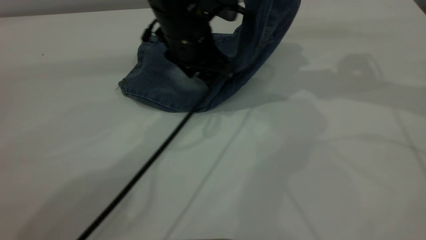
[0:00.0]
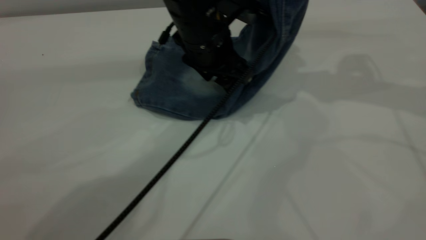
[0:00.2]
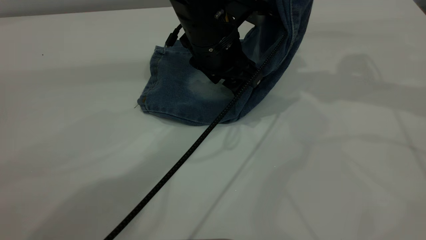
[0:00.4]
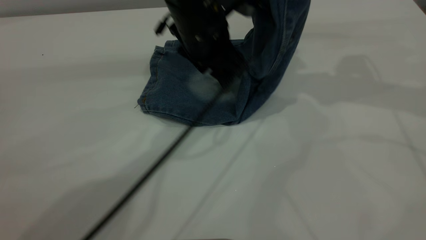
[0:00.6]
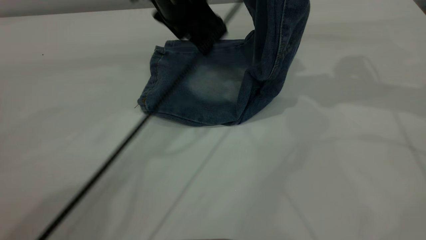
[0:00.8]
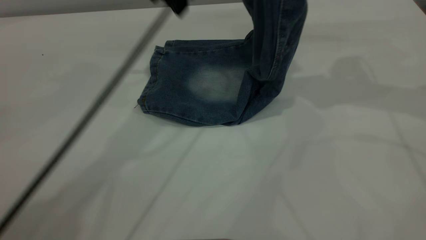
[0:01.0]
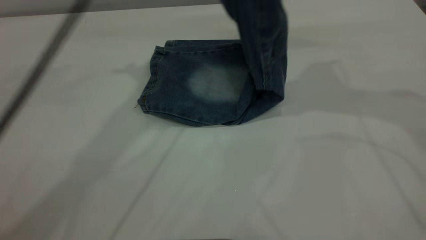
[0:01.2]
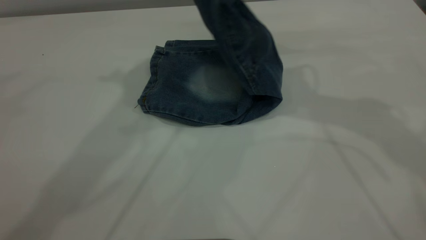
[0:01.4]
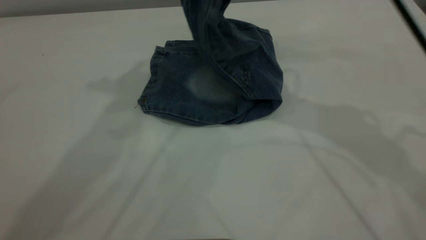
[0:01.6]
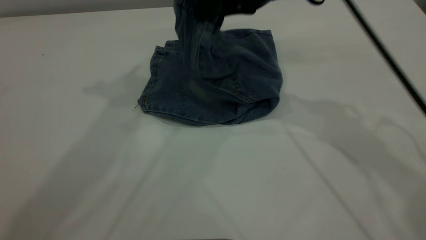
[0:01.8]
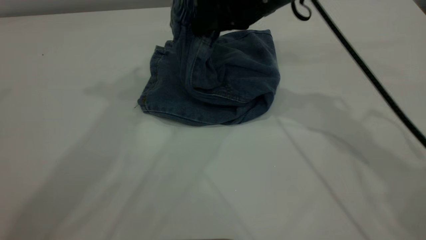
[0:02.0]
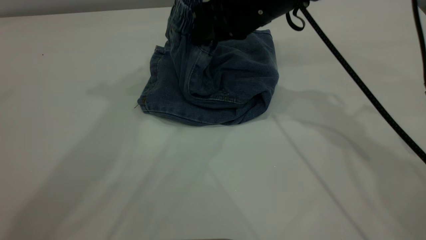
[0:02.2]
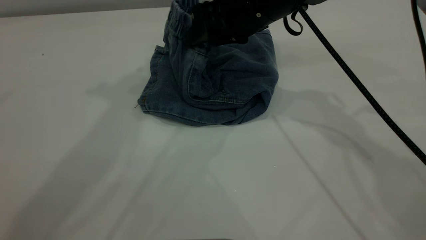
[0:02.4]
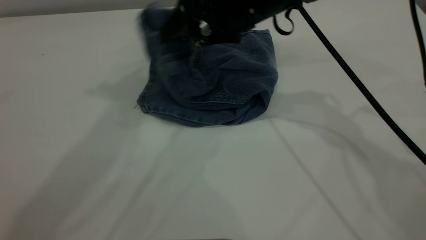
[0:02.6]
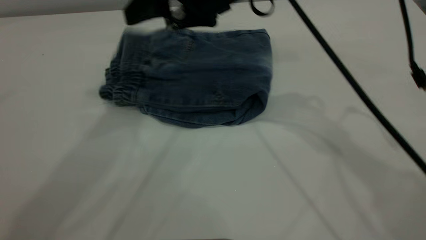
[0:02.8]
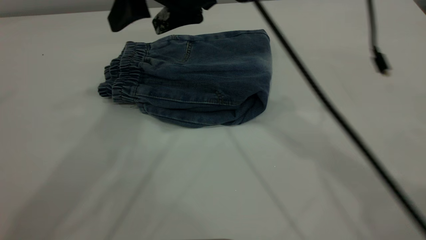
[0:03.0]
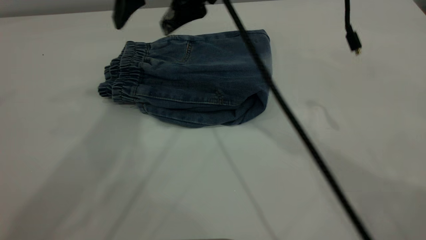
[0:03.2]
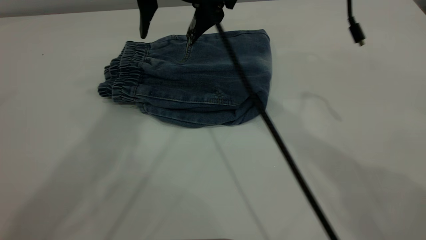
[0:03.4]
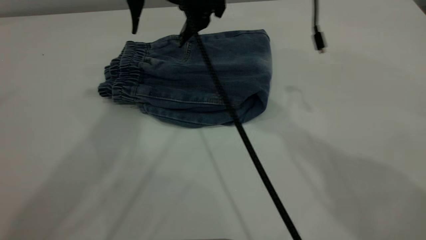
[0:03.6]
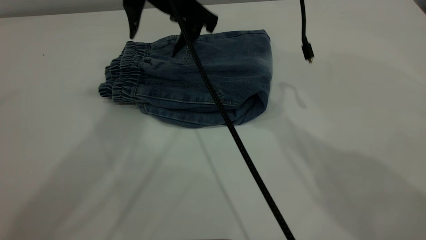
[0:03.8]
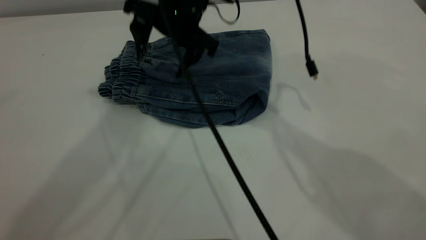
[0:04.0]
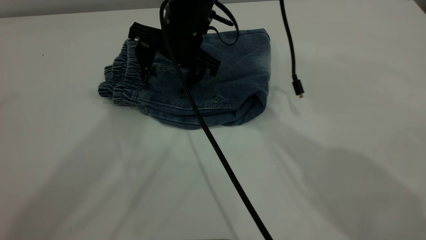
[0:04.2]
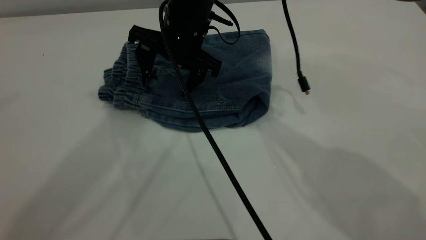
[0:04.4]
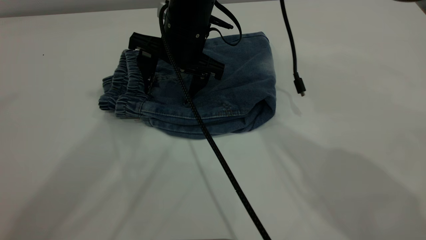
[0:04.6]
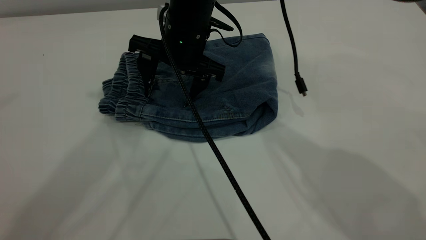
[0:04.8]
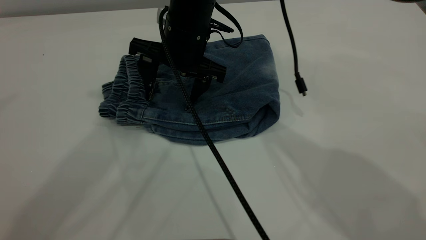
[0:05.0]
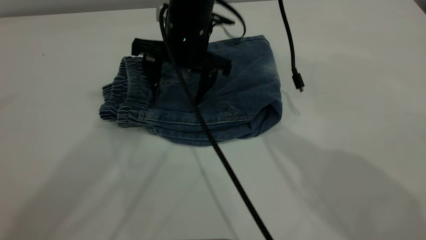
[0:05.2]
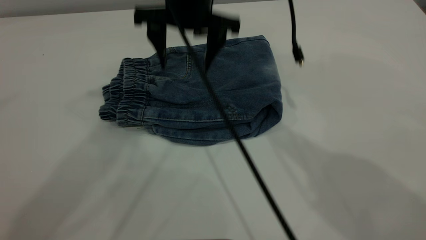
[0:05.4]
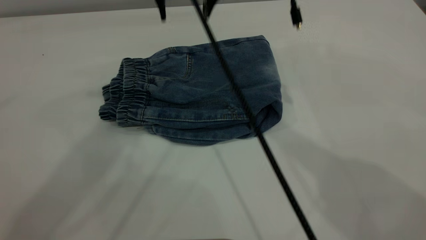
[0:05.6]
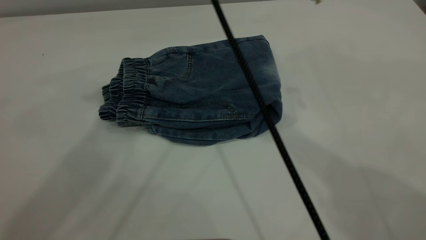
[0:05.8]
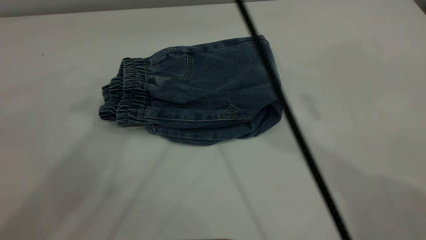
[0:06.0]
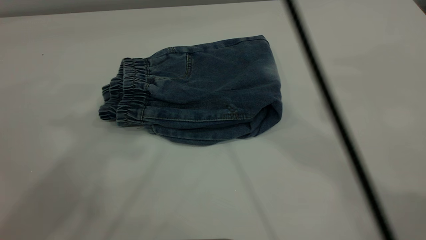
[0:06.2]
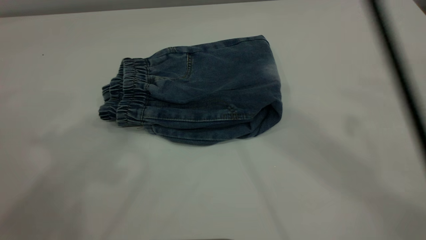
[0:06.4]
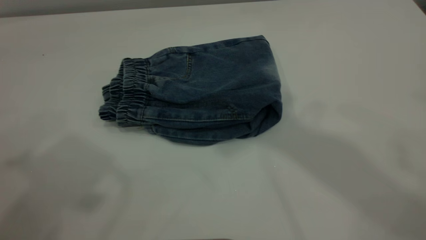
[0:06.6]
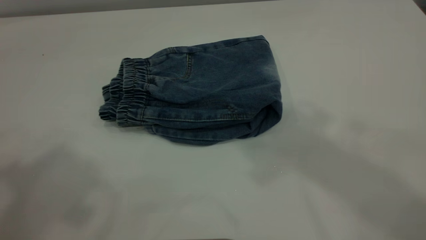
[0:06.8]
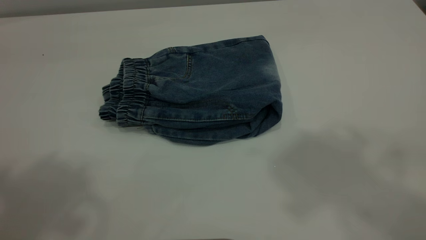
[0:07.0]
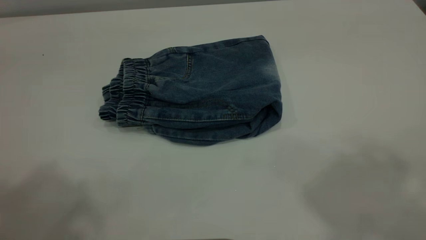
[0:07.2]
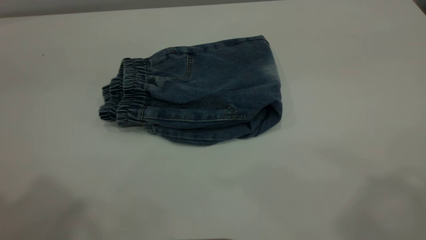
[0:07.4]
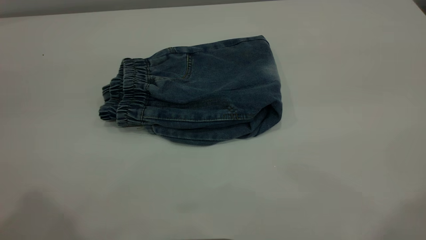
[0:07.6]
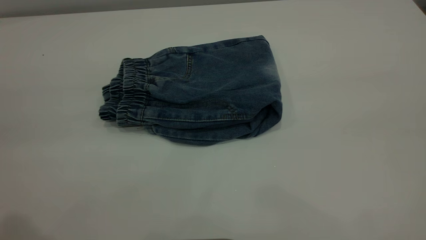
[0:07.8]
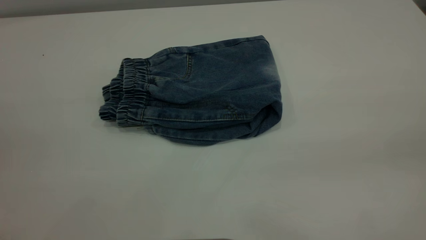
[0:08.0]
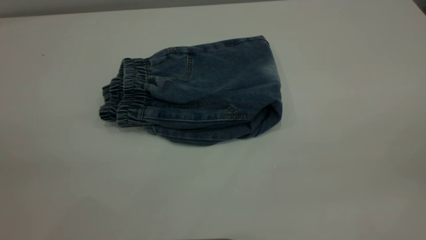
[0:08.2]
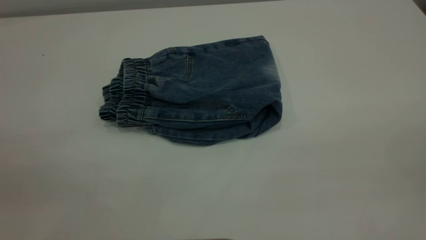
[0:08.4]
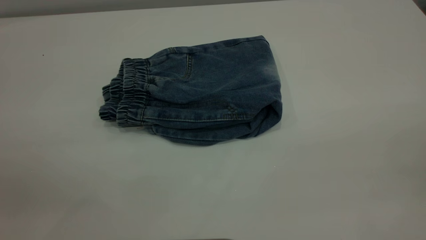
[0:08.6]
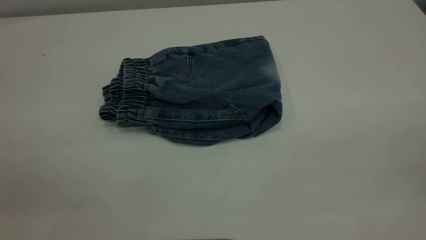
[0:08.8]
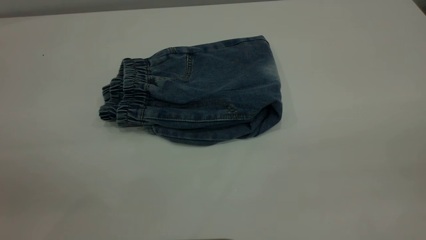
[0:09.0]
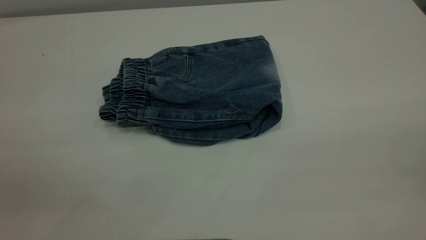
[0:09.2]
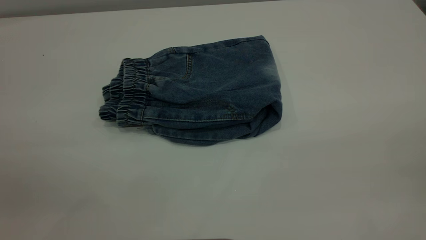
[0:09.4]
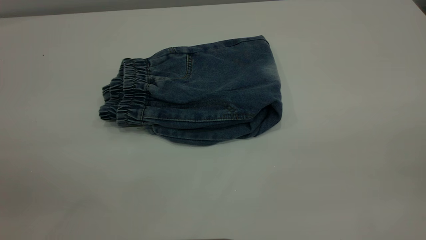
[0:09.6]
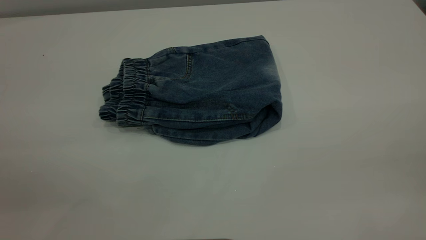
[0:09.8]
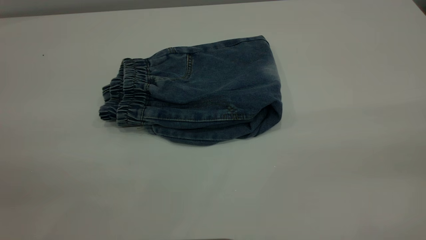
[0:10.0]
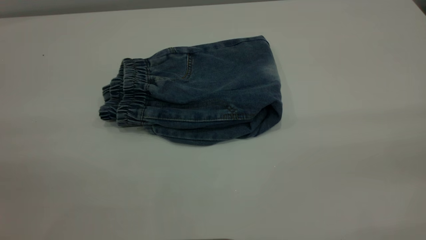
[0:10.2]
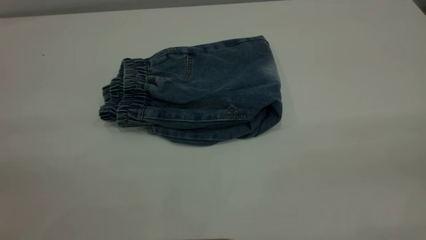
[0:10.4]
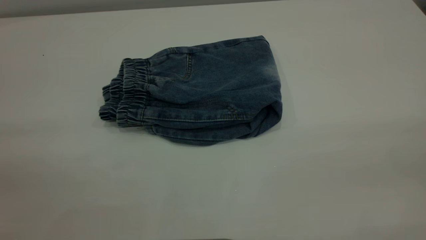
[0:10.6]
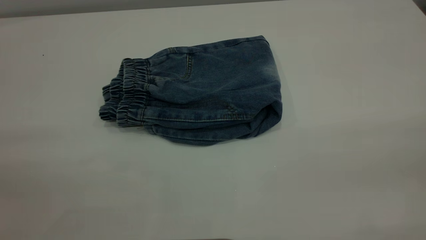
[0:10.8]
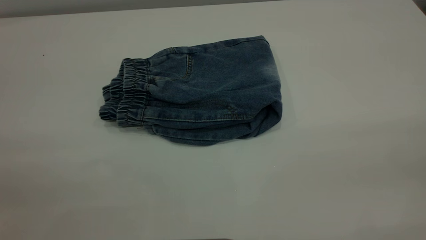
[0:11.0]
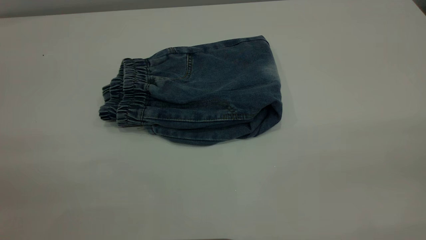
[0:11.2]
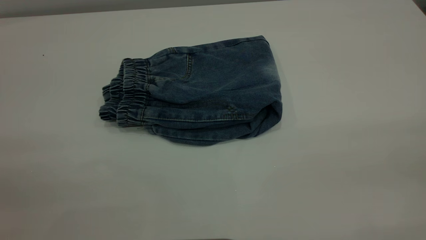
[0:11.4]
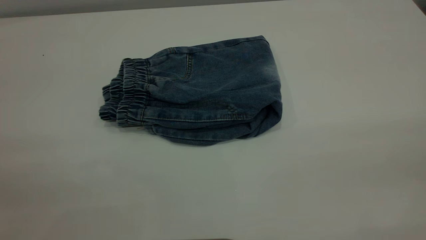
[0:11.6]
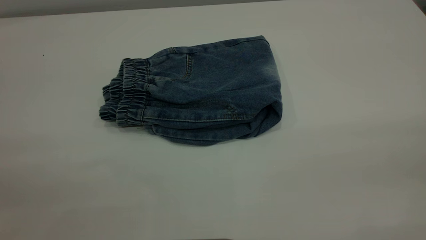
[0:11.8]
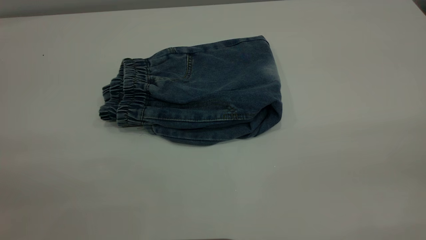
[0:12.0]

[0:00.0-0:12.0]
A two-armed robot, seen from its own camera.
Step, 0.0 to 3.0 s: Fold your pants from right to left.
0.0 to 1.6 s: The right gripper heads to the left, covering roughly 15 cm, while the left gripper heads upward, covering some 30 cm.
1.6 to 3.0 s: The right gripper heads to the left, covering some 10 cm, and opens its fingers.
3.0 to 4.4 s: The right gripper travels downward by about 10 cm.
4.4 to 6.0 s: The right gripper heads upward, covering approximately 25 cm.
6.0 to 7.6 s: The right gripper goes about 35 cm backward and to the right. Meanwhile the left gripper travels backward and to the left by roughly 20 cm.

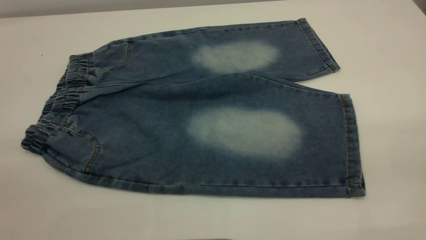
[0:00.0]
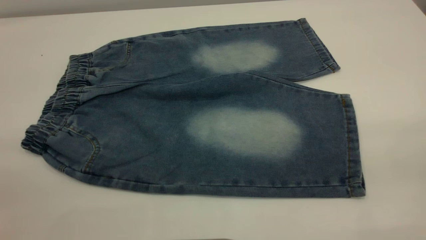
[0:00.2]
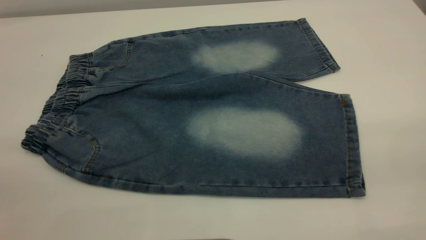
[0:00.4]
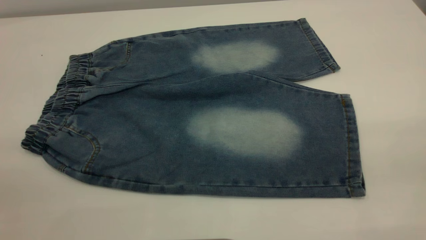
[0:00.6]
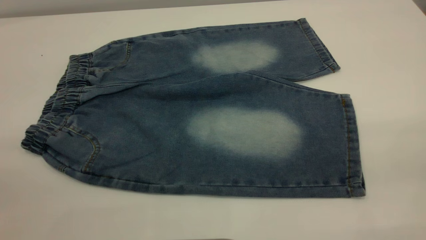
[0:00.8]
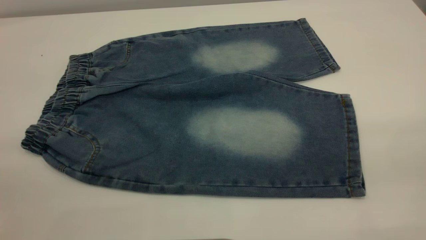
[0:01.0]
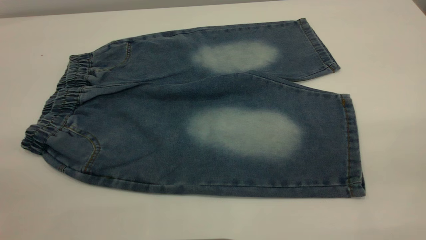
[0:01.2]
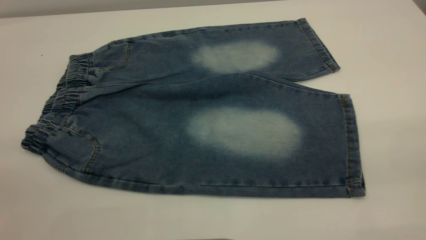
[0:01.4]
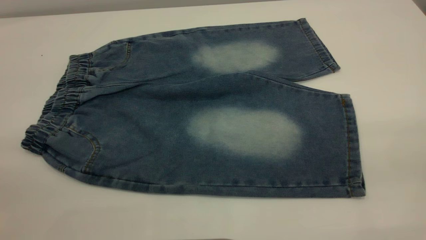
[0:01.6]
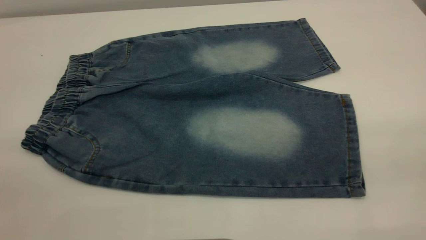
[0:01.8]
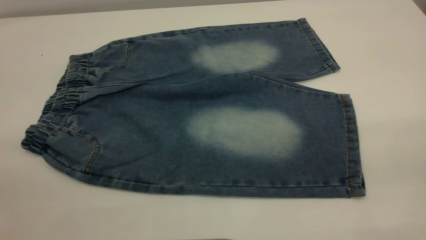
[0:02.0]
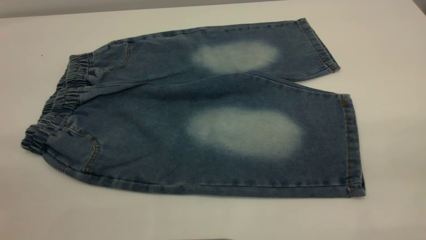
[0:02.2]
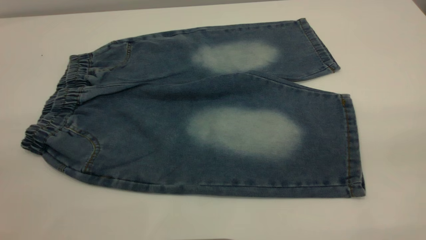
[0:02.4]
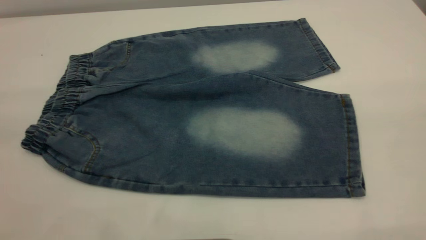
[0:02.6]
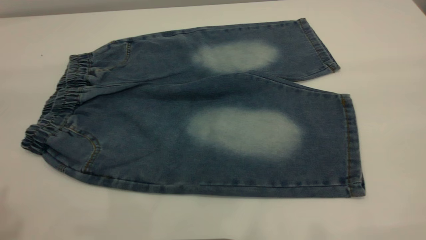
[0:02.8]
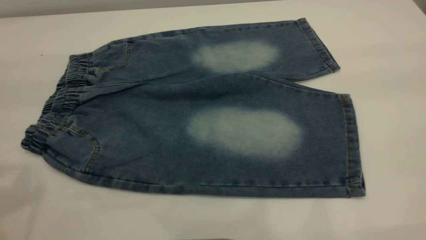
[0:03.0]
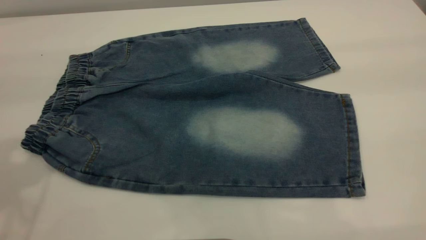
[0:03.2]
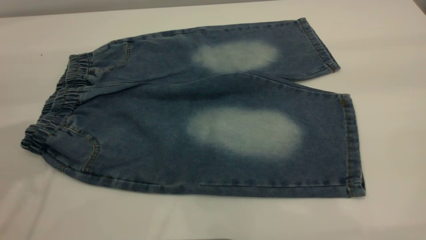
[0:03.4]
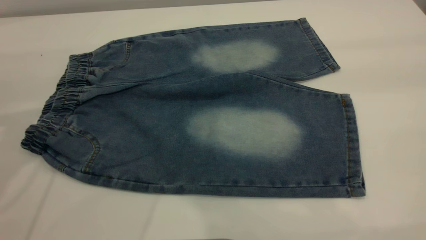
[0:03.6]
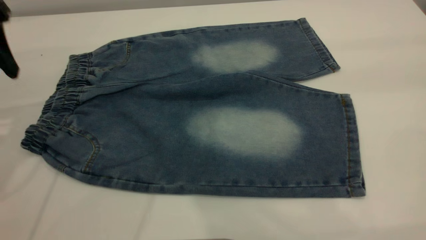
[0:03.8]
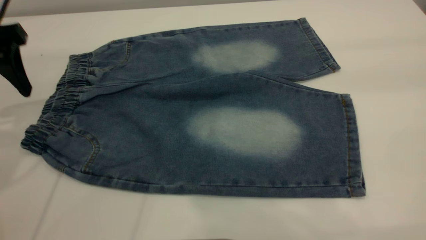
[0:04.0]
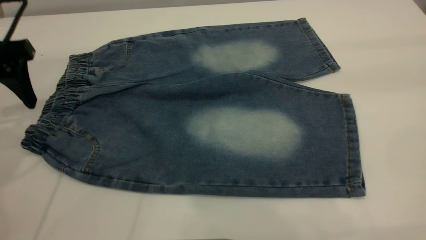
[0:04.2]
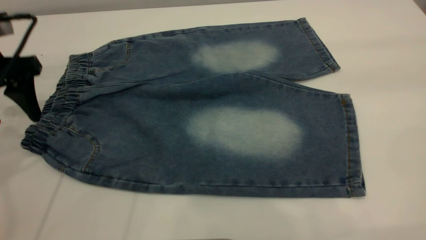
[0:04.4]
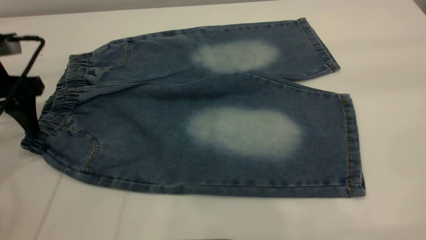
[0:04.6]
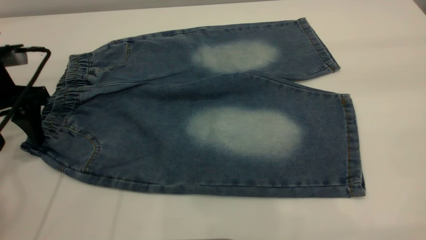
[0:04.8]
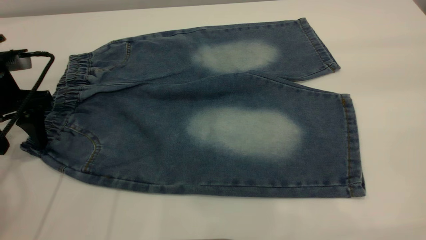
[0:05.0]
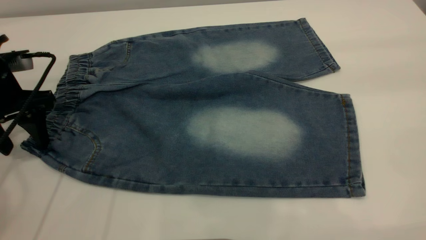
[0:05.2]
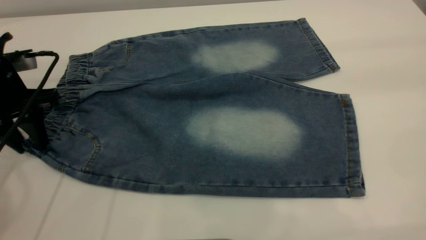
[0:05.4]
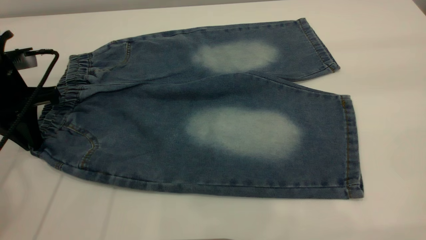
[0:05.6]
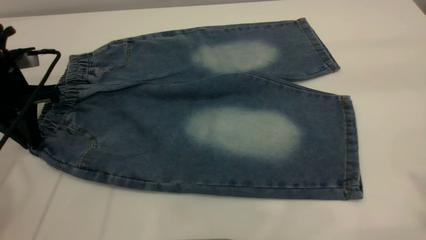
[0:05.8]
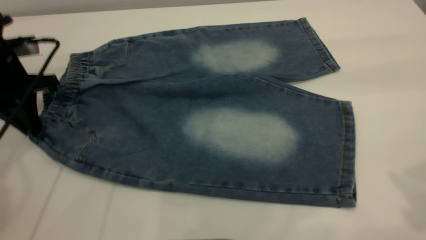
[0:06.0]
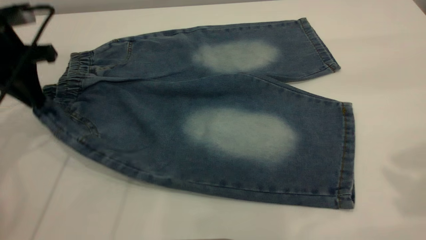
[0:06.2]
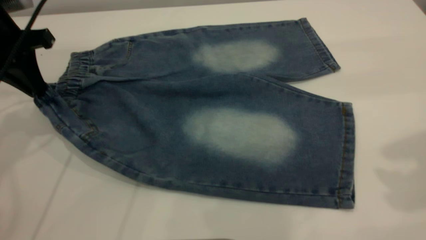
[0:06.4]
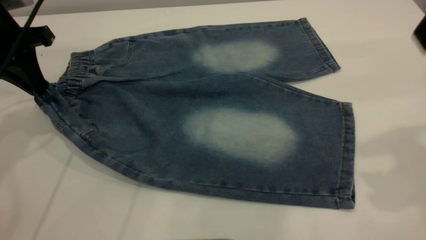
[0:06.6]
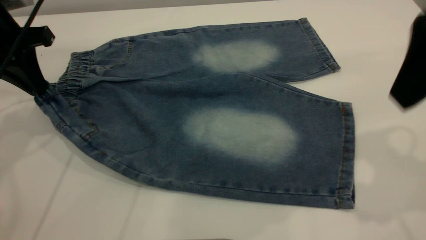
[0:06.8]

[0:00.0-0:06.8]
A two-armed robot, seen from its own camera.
0.0 to 1.4 s: Both grippers stay put.
2.8 to 4.0 s: The left gripper is displaced forward and downward by about 25 cm.
4.0 to 5.4 s: The left gripper is displaced downward by roughly 10 cm, and closes.
5.4 to 6.8 s: The left gripper heads upward, covering approximately 5 cm, and closes. The right gripper moves downward, to the left and forward, about 15 cm.
